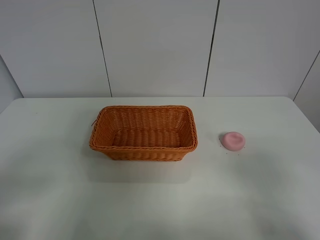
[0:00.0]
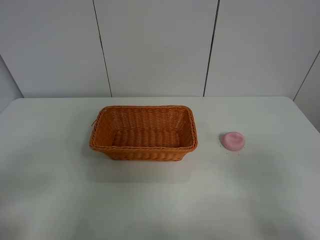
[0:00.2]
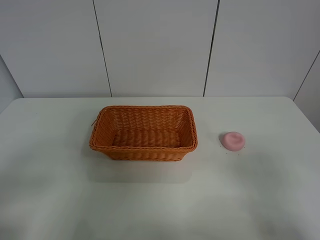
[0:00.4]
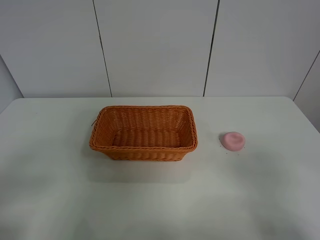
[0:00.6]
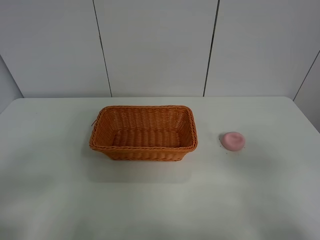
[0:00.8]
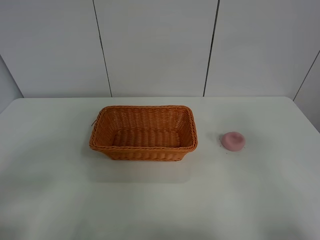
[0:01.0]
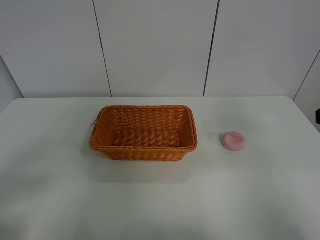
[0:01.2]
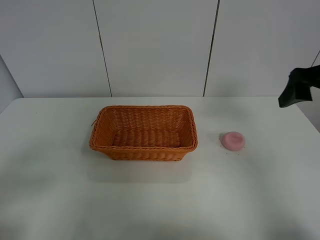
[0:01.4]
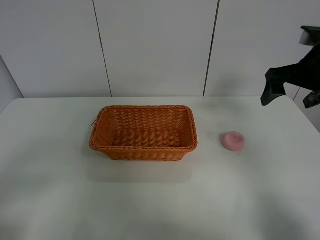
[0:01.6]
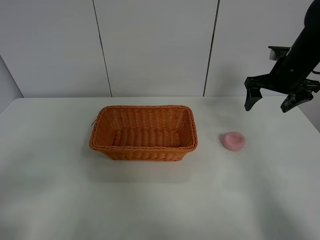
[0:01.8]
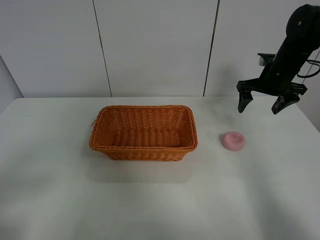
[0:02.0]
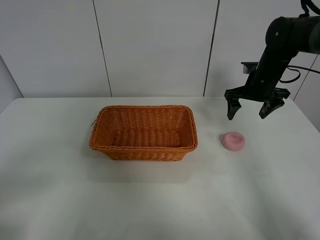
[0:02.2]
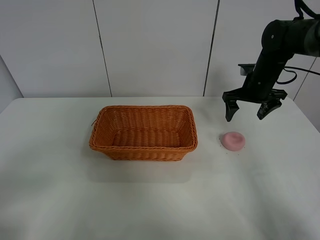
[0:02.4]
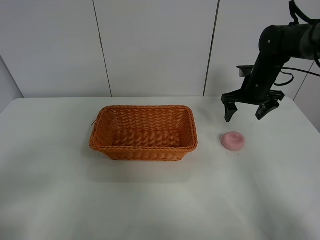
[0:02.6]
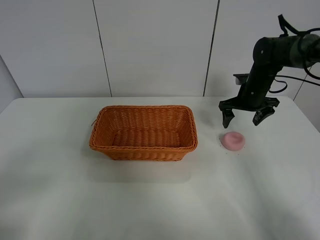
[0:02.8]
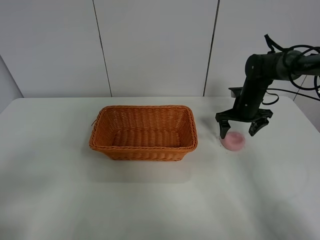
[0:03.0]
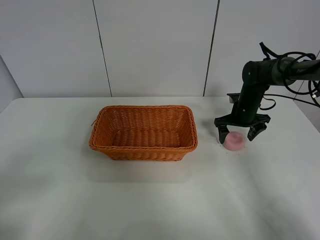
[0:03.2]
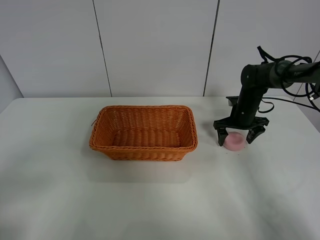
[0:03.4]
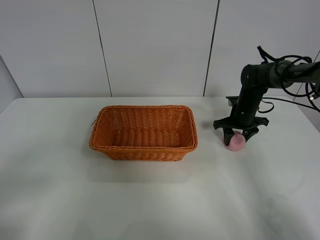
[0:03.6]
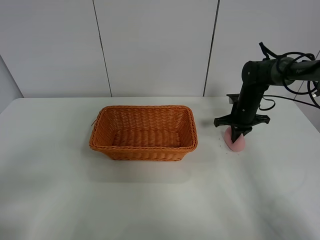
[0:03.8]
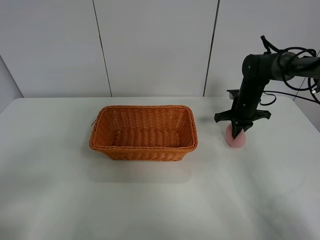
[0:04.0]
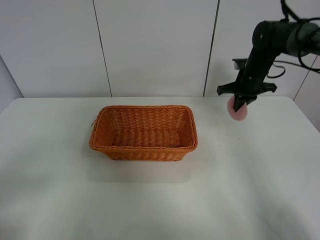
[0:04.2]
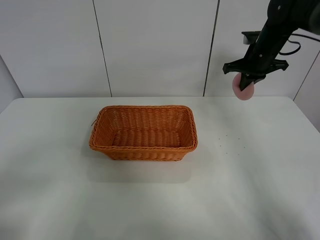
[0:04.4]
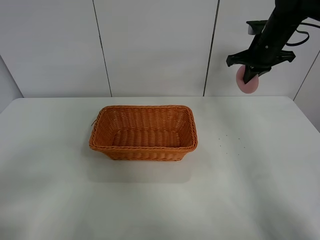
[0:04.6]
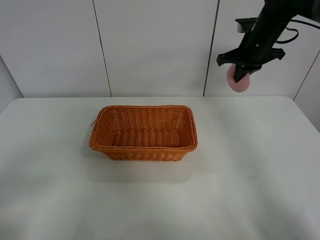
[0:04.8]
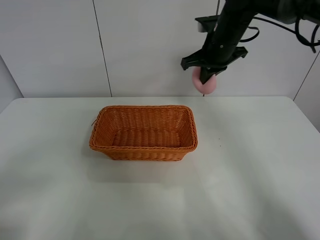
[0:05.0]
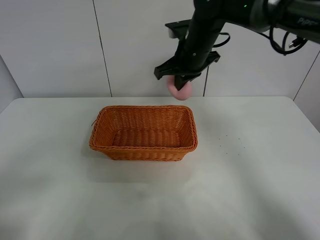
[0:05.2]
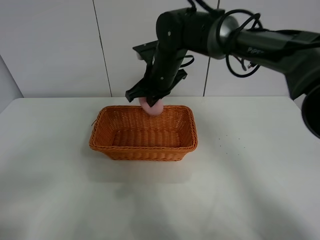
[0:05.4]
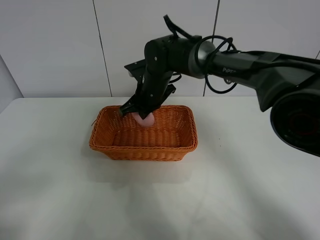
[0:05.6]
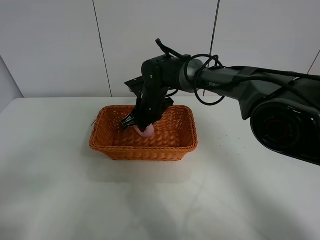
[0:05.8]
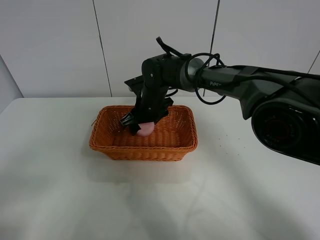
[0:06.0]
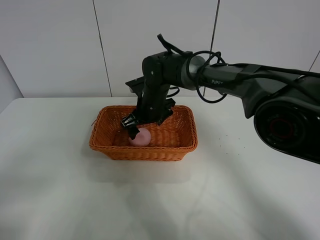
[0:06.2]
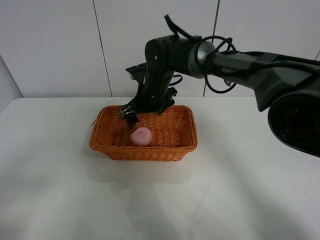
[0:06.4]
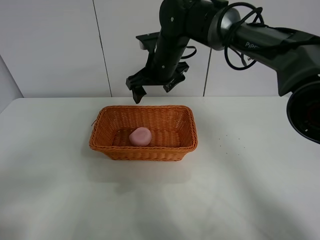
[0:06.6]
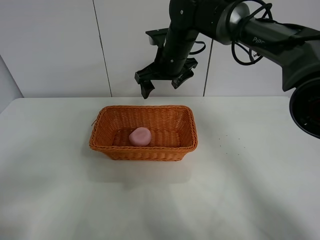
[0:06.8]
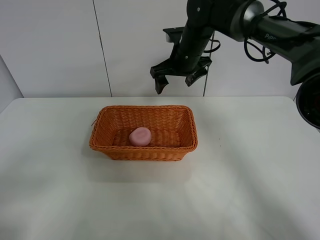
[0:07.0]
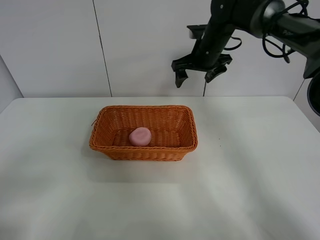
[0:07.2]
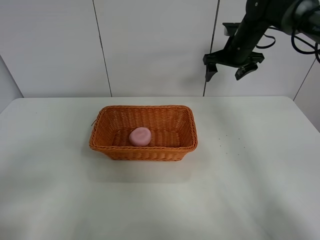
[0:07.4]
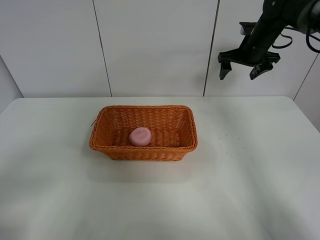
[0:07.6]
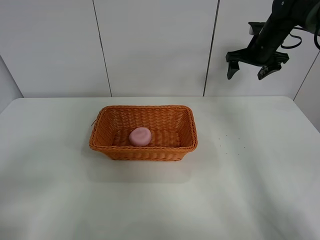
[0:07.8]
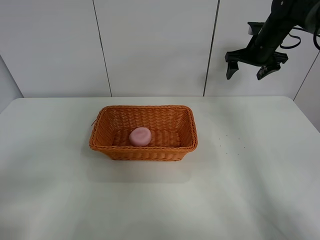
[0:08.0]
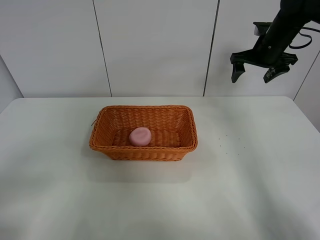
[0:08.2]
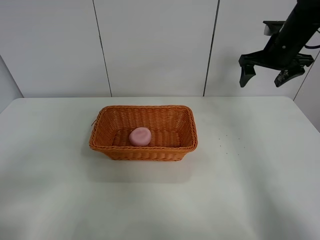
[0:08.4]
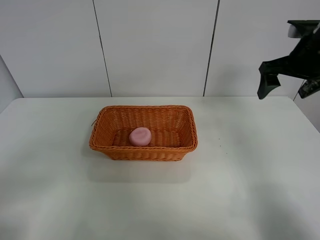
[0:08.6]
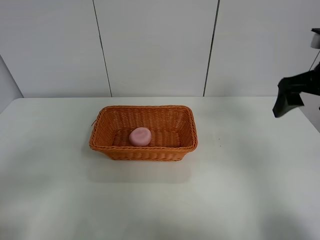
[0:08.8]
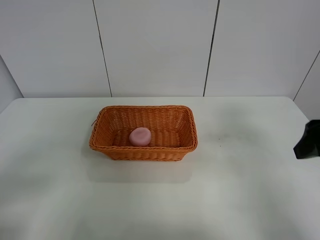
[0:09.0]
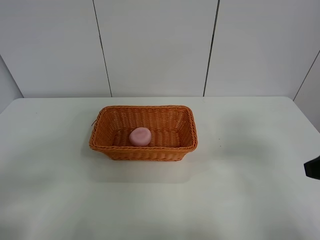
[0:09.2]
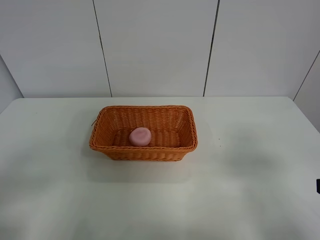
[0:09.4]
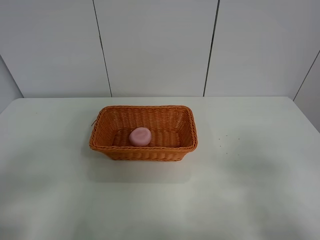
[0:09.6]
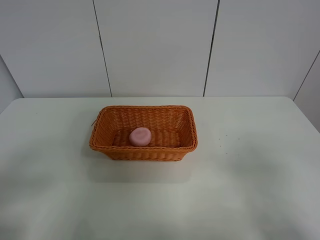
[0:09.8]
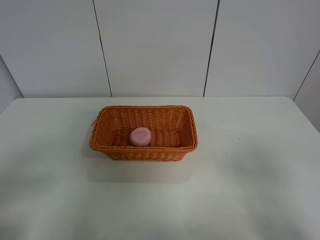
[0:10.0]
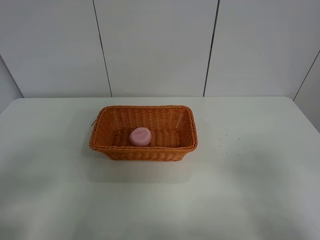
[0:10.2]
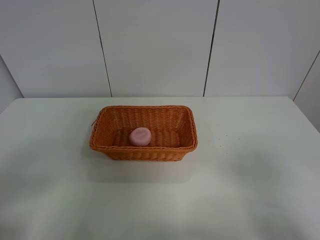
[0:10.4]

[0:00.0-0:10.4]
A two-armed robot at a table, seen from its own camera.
Step, 0:00.0 to 0:04.0: Grasp the peach with right gripper.
Step, 0:04.2 to 0:06.8: Place the peach in the basket with right gripper.
0:00.0 to 0:01.4: The right gripper is displaced forward by about 25 cm.
0:01.4 to 0:03.0: The right gripper goes approximately 25 cm downward and forward.
0:03.0 to 0:04.4: The right gripper moves upward, about 15 cm, and closes.
0:04.4 to 0:06.0: The right gripper heads to the left and downward, covering roughly 30 cm, and opens up.
0:06.0 to 0:07.4: The right gripper goes approximately 25 cm to the right and upward.
0:07.4 to 0:09.0: The right gripper travels backward by some 35 cm.
0:09.0 to 0:10.4: The right gripper goes about 15 cm backward.
